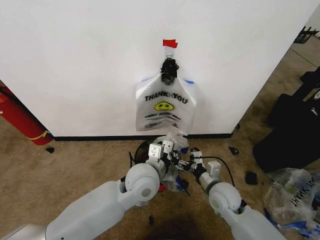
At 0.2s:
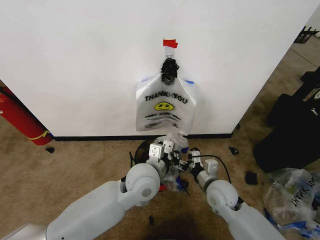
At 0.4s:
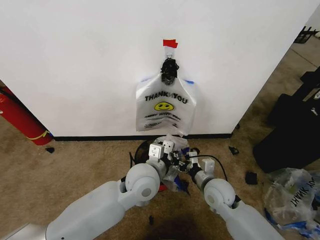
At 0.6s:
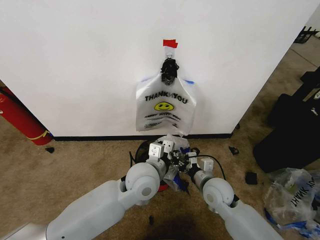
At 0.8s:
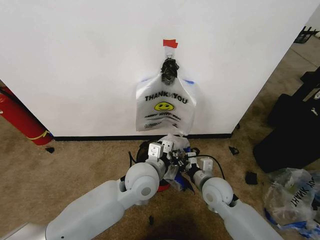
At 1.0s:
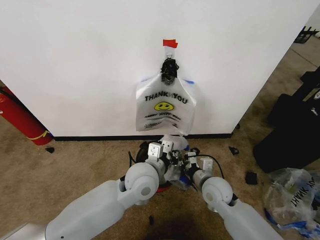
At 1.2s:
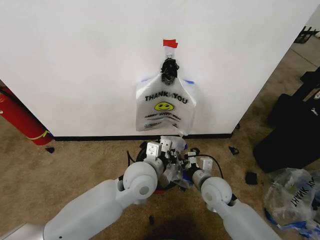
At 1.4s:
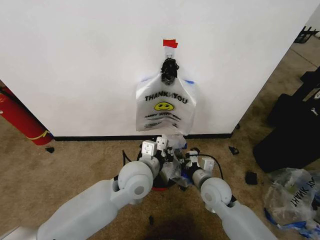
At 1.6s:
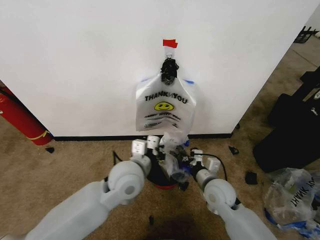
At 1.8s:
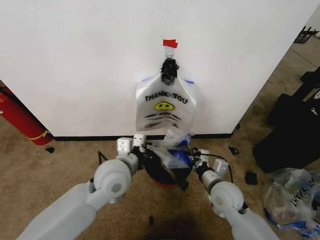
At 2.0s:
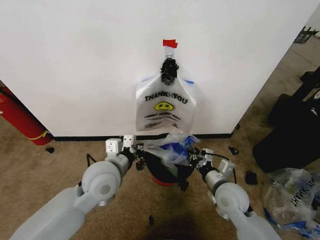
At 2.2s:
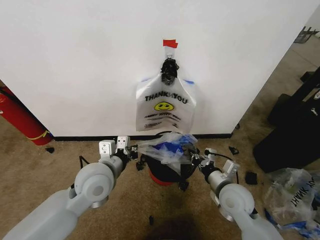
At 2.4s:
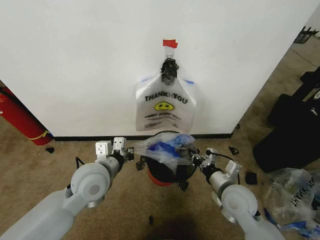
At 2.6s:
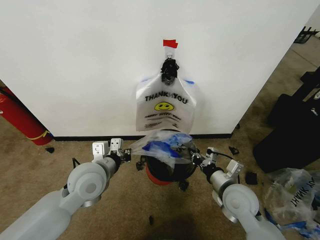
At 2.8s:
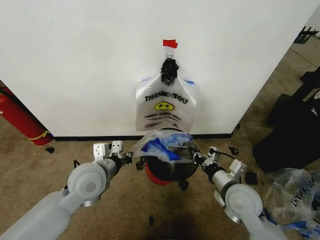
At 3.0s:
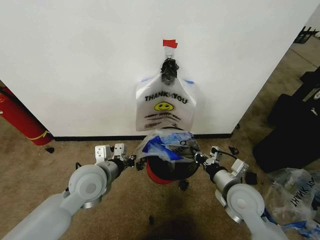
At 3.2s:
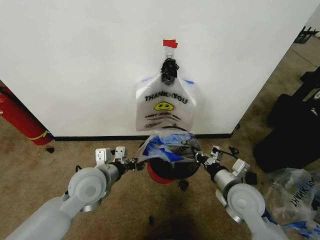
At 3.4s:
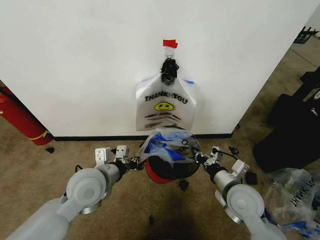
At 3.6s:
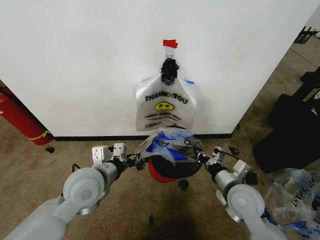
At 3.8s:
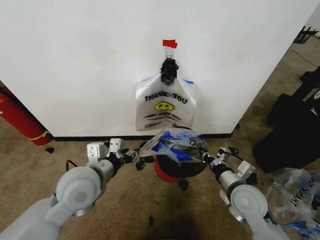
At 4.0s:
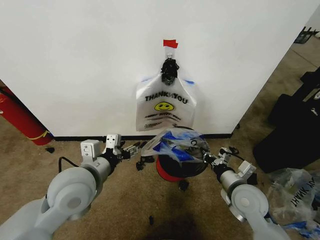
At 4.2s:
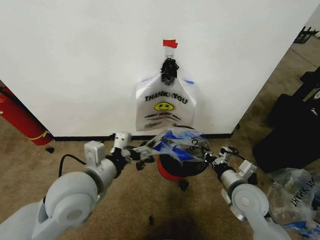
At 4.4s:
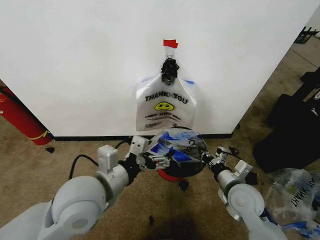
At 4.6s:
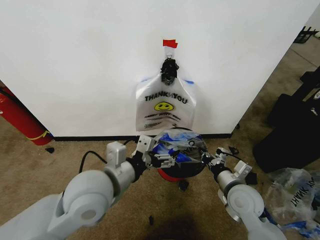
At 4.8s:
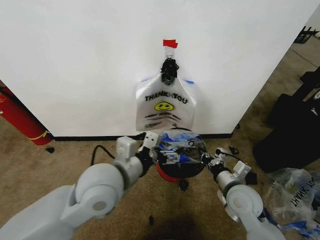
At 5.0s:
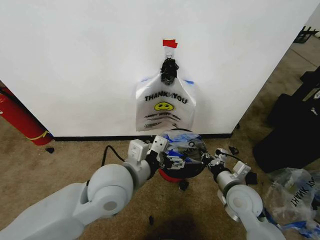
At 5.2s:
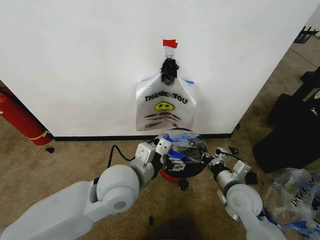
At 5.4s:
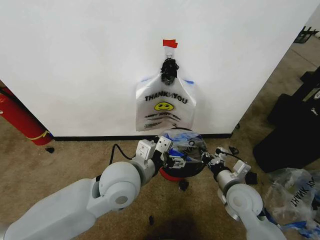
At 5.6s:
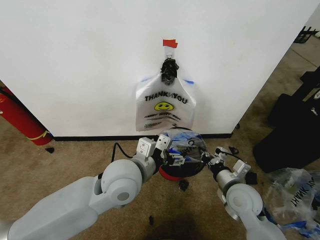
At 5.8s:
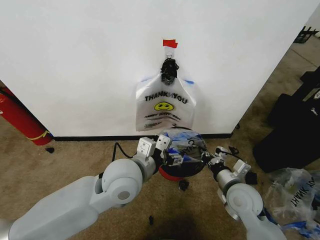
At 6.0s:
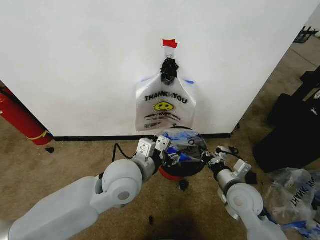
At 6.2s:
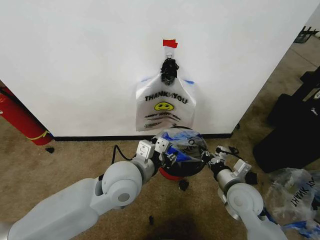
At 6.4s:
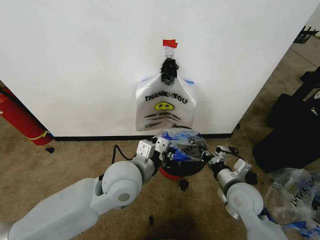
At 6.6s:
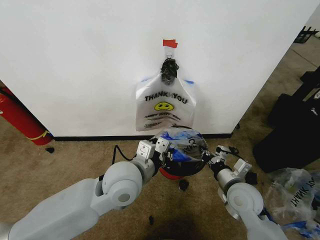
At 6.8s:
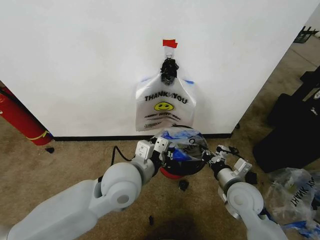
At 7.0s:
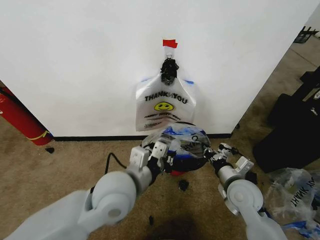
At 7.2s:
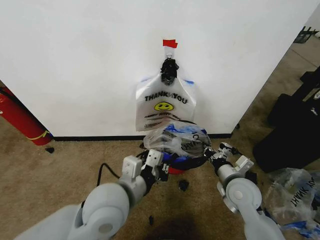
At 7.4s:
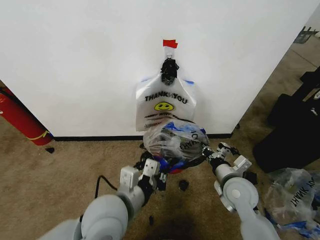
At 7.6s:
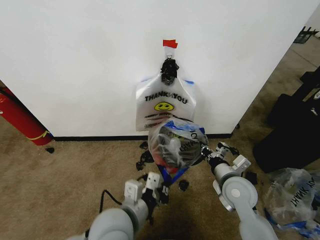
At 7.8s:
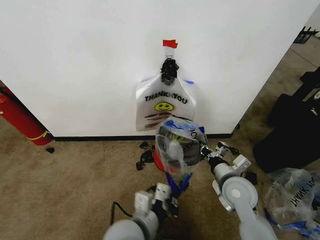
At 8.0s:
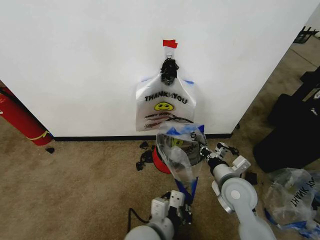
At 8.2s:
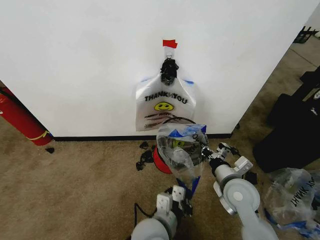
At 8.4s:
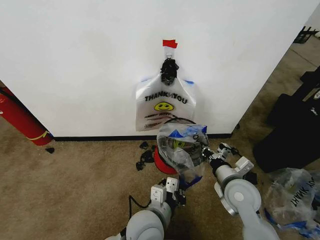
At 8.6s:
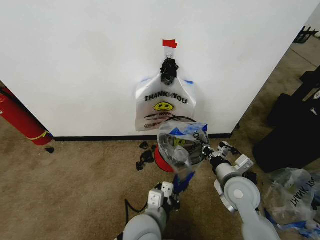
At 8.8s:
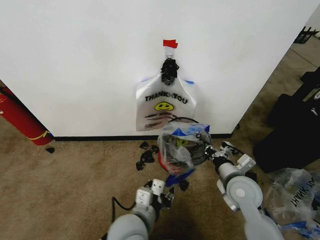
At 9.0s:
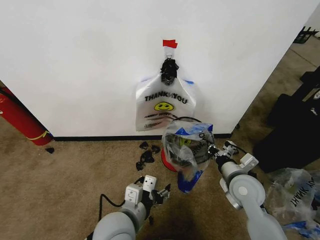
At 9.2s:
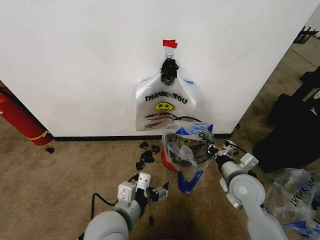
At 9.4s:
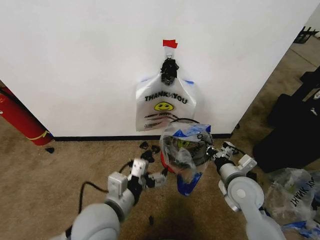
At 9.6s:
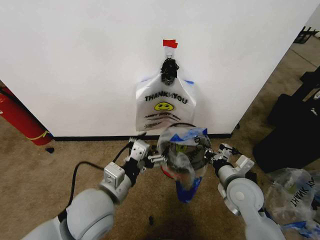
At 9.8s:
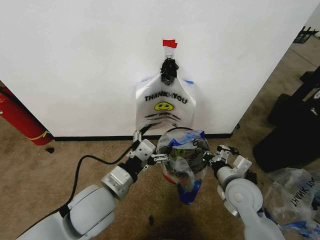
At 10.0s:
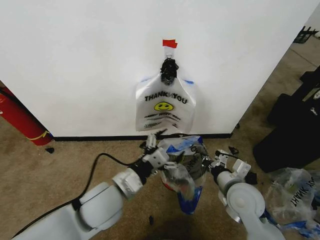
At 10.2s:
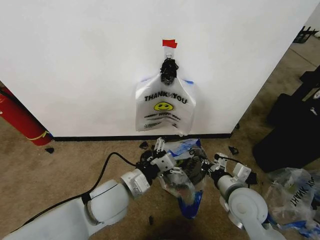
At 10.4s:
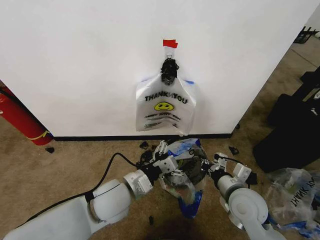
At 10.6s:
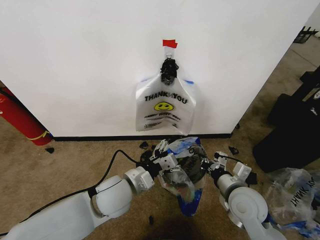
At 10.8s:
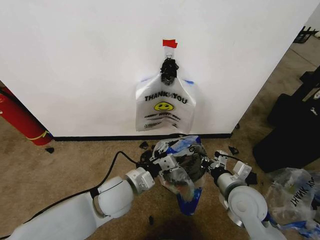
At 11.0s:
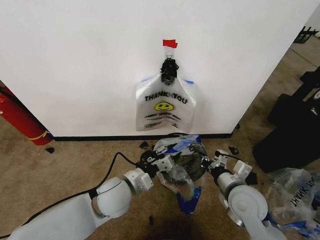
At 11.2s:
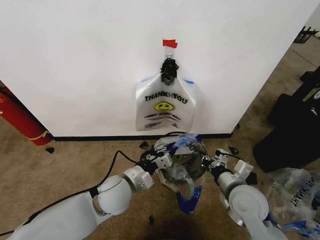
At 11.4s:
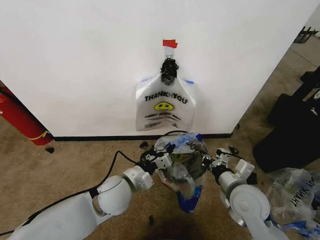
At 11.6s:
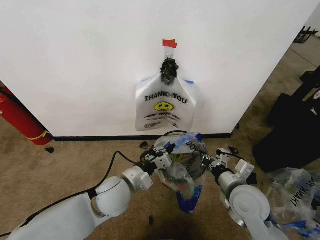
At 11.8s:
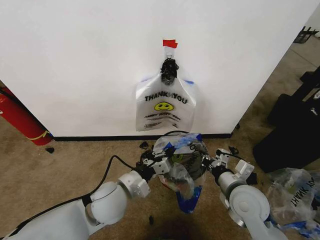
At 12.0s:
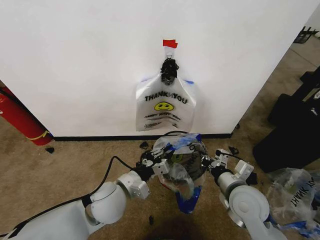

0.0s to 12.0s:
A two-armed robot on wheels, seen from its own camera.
Task of the whole recording: Pick up the garbage bag from the wall and place it over the trash bin.
0.0s to 1.6s: The right gripper closes up.
1.6s to 3.0s: The right gripper shifts by about 10 cm. Meanwhile the left gripper goes approximately 10 cm to the left.
3.0s to 4.4s: The left gripper heads backward and upward, covering about 10 cm, and opens up.
4.4s to 6.0s: The left gripper shifts roughly 10 cm to the right and forward, and closes.
6.0s to 7.6s: The left gripper goes roughly 10 cm backward and downward, and closes its fingers.
7.6s to 9.0s: The left gripper moves roughly 10 cm to the right and comes back, and opens.
9.0s to 10.4s: The left gripper travels forward by some 10 cm.
10.4s to 12.0s: The left gripper closes its fingers.

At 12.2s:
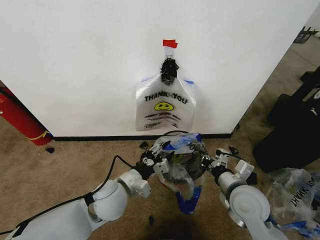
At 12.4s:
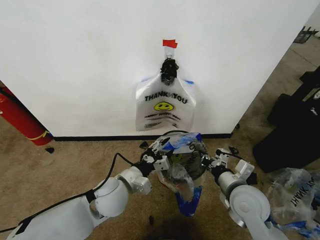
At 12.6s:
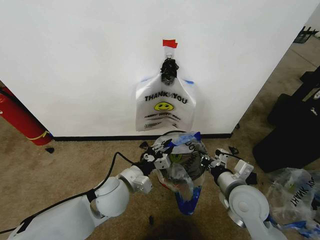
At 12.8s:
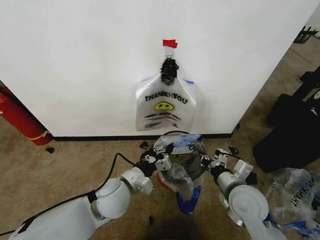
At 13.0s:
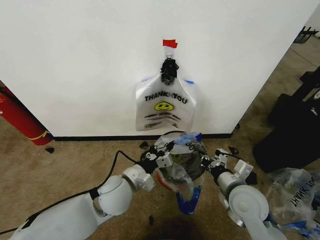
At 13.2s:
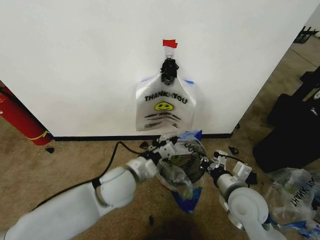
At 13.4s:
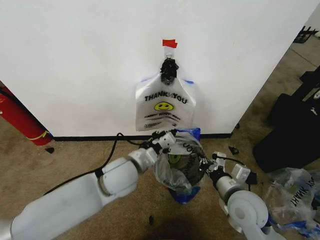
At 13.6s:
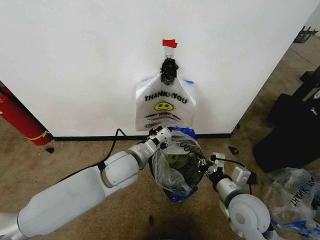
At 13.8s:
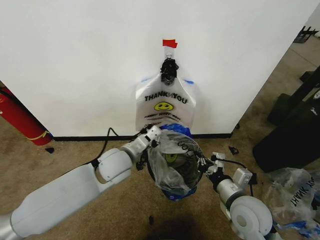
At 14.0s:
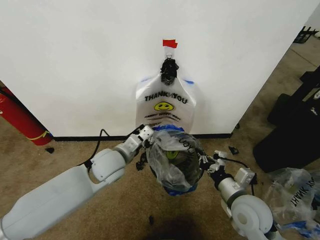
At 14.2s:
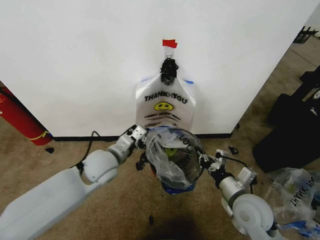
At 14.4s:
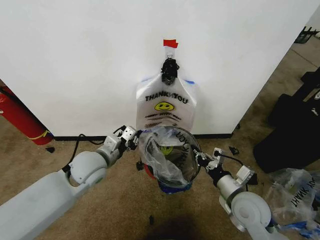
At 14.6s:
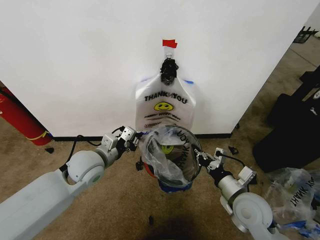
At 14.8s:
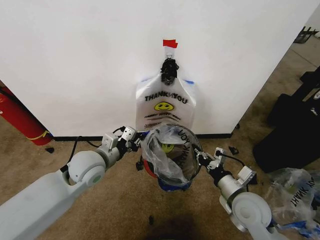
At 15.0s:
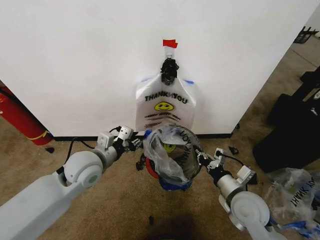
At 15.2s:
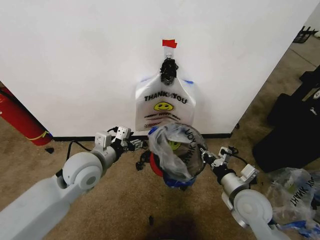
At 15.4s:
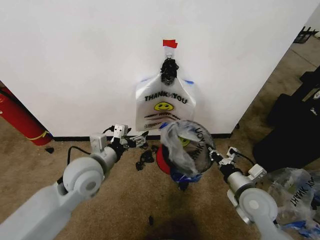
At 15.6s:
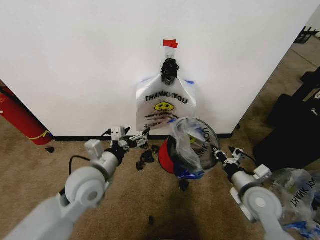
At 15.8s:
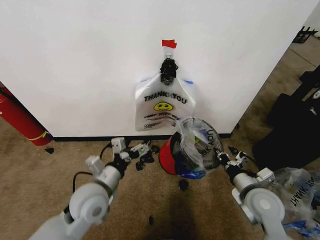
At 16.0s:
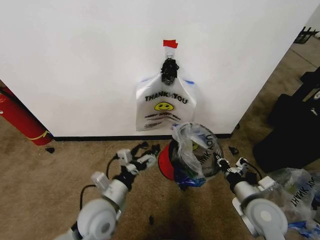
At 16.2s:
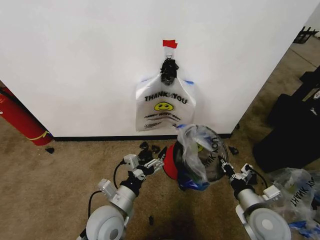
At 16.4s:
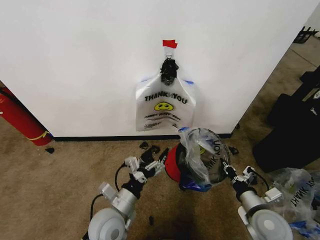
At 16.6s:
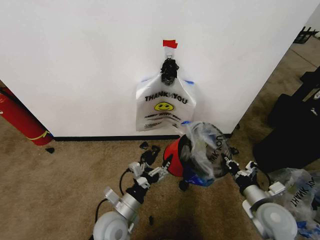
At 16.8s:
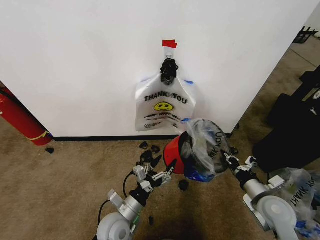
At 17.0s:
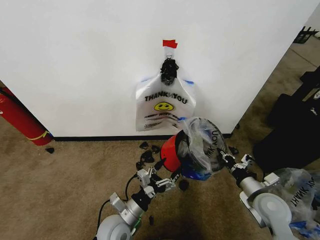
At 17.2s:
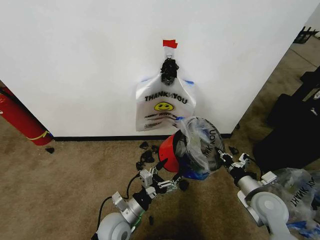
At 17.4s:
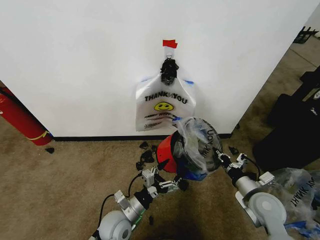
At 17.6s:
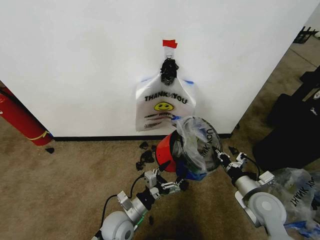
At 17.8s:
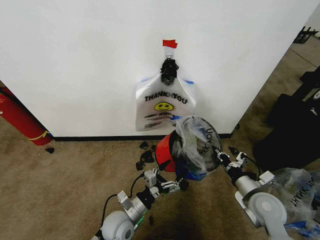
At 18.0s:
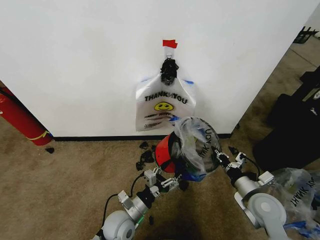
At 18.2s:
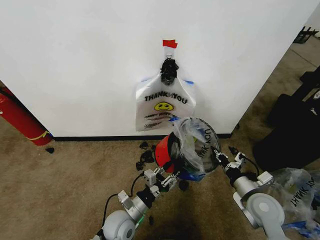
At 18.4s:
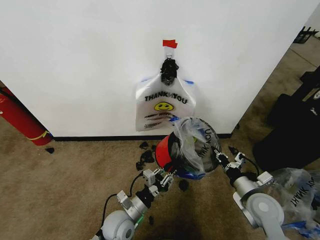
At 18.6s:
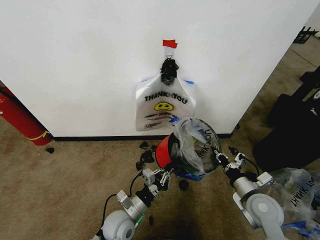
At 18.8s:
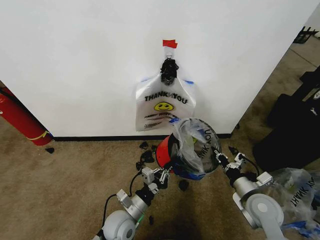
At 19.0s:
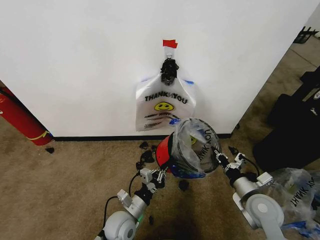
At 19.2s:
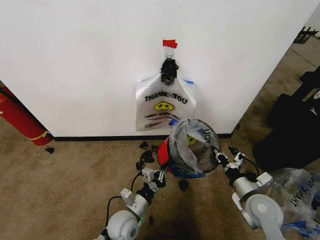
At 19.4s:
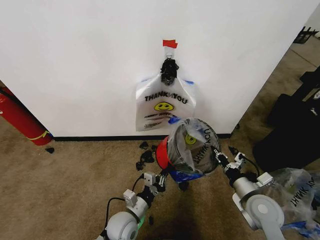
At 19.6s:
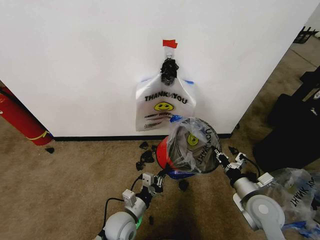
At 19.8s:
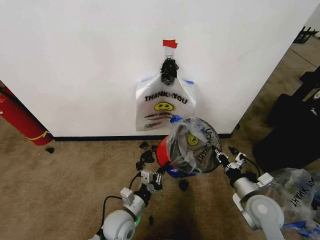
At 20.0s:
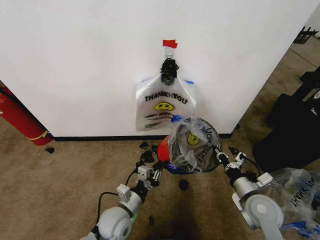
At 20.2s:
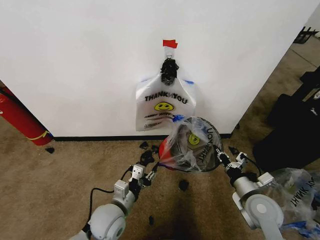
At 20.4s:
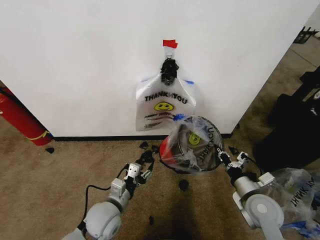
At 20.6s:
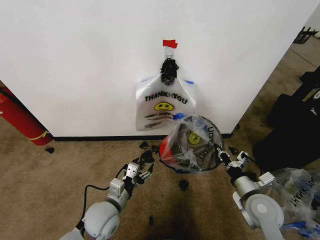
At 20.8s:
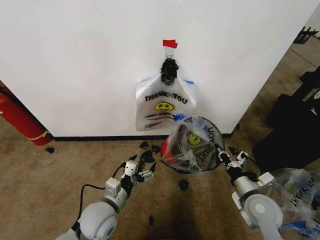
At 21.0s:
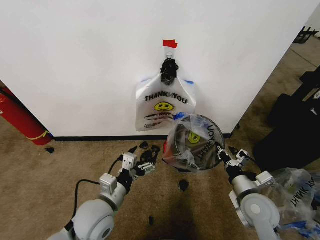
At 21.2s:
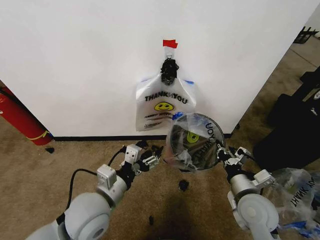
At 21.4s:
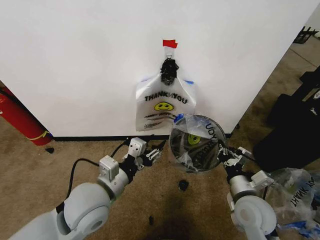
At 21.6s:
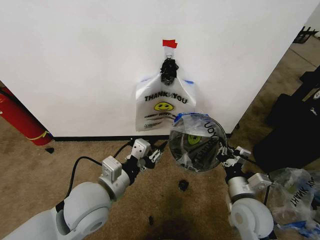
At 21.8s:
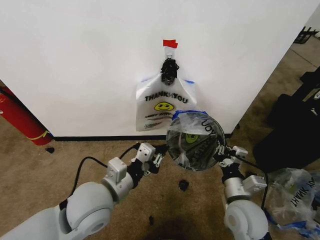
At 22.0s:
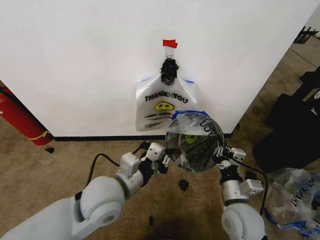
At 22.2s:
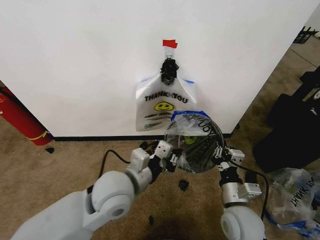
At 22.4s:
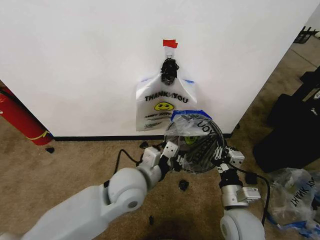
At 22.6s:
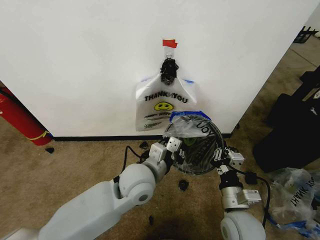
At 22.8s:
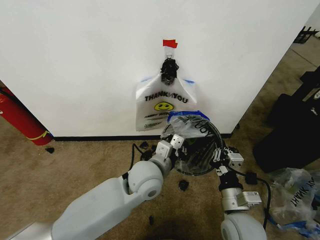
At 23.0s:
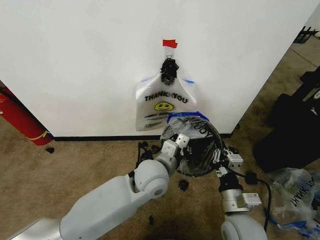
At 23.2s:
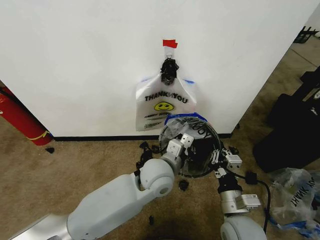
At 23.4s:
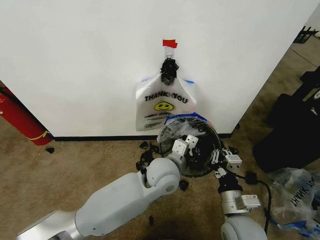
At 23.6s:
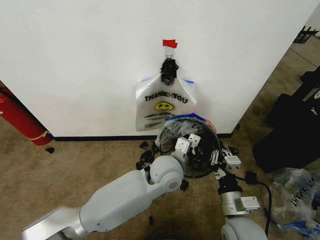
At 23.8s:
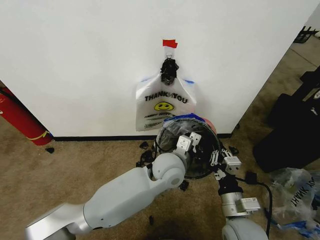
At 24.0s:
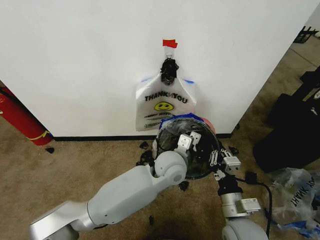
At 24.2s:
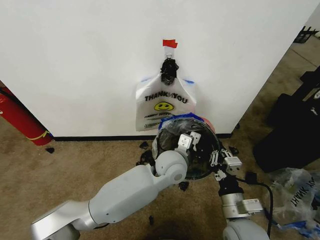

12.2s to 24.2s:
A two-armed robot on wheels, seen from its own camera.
Task of the whole recording: Pick up the garbage bag from the wall and place it over the trash bin.
12.2s to 13.8s: The left gripper travels forward by roughly 10 cm, and closes.
13.8s to 15.2s: The left gripper shifts some 10 cm to the left, and opens its fingers.
15.2s to 16.6s: The right gripper heads to the right, covering approximately 5 cm, while the left gripper is displaced downward, backward and to the right by roughly 20 cm, and opens.
16.6s to 18.2s: The left gripper closes up.
18.2s to 19.8s: The left gripper closes its fingers.
19.8s to 21.2s: The left gripper heads upward, covering some 15 cm, and opens up.
21.2s to 22.6s: The right gripper travels to the left by roughly 5 cm. The left gripper shifts about 15 cm to the right and forward, and closes.
22.6s to 24.2s: The left gripper heads to the right and forward, covering some 10 cm.
